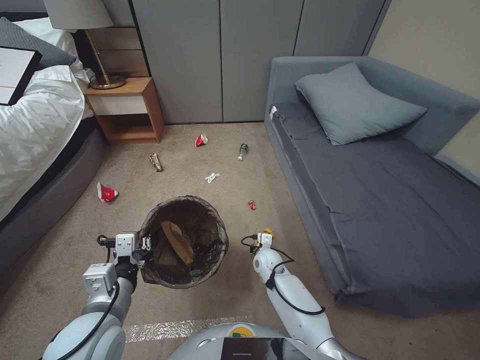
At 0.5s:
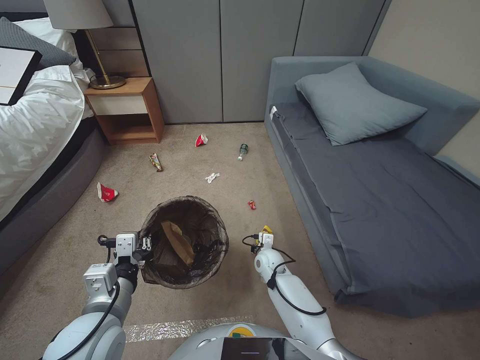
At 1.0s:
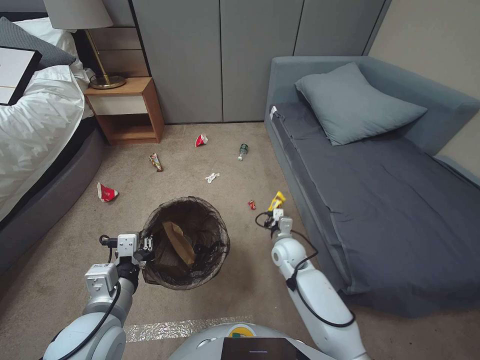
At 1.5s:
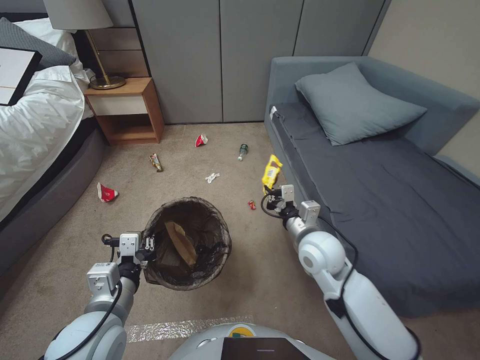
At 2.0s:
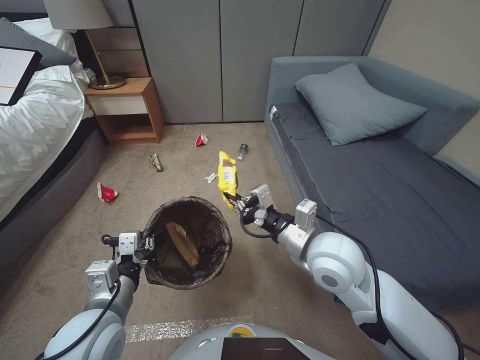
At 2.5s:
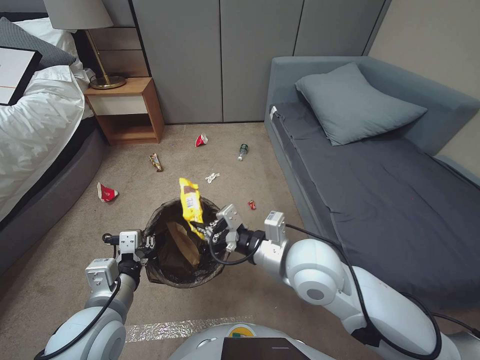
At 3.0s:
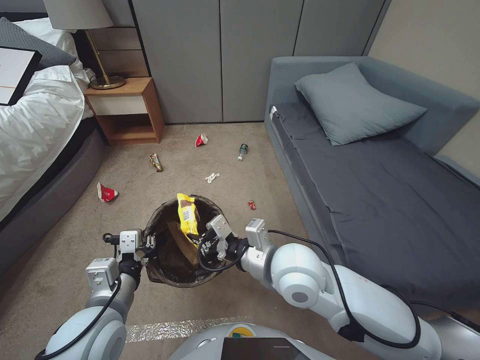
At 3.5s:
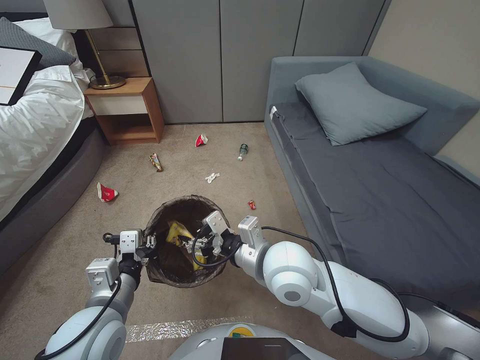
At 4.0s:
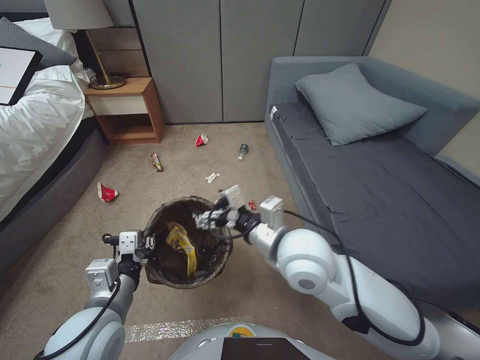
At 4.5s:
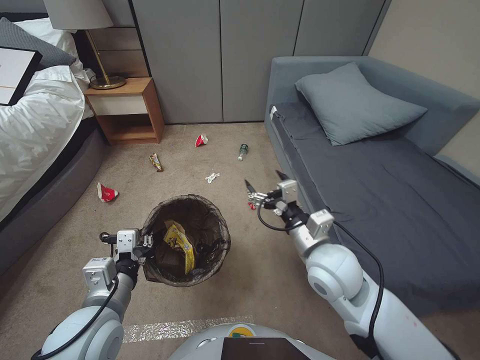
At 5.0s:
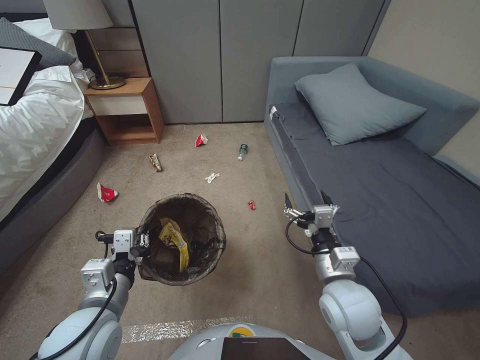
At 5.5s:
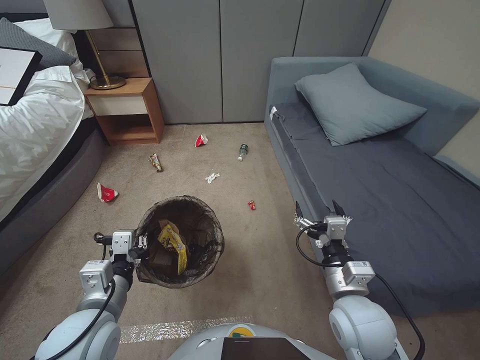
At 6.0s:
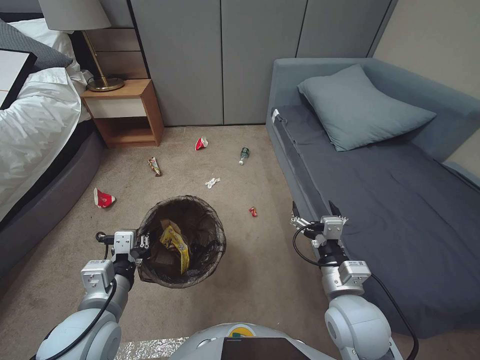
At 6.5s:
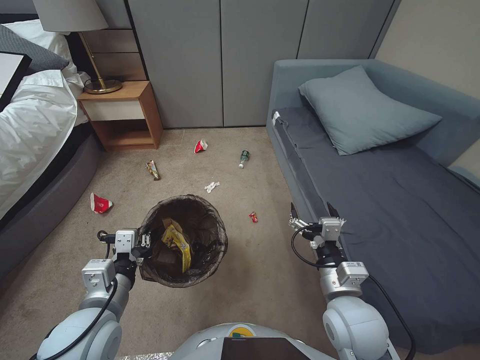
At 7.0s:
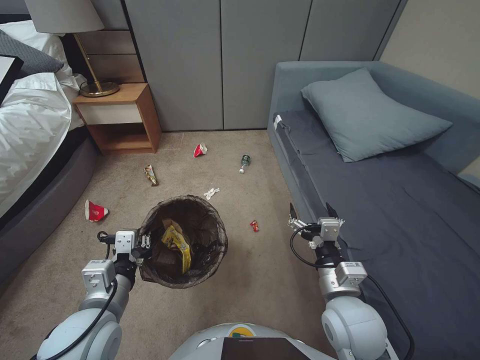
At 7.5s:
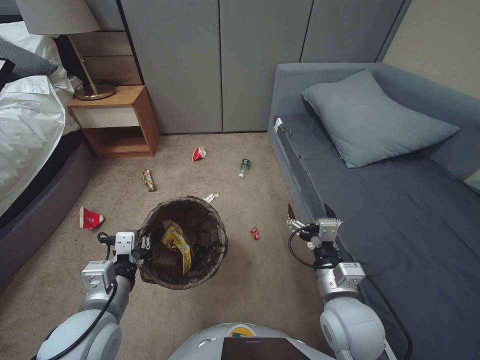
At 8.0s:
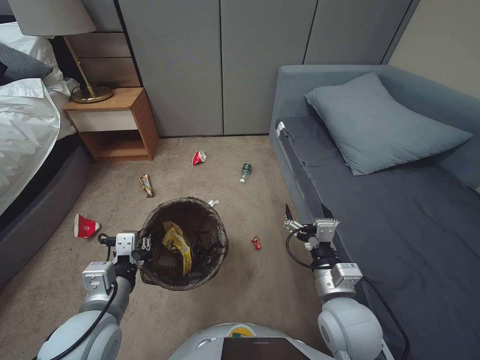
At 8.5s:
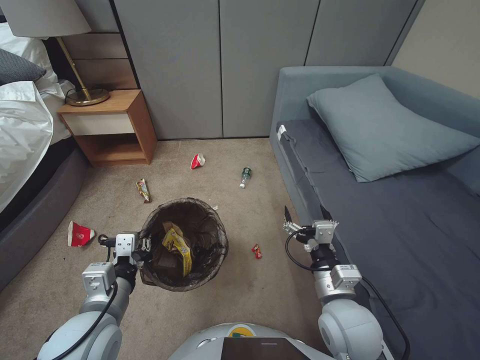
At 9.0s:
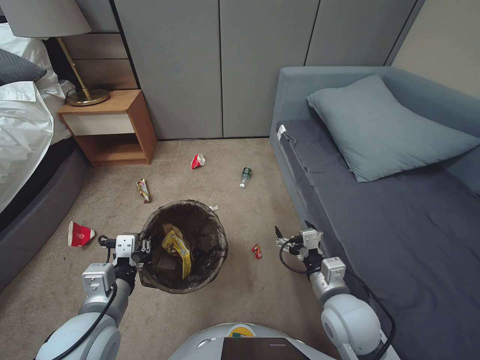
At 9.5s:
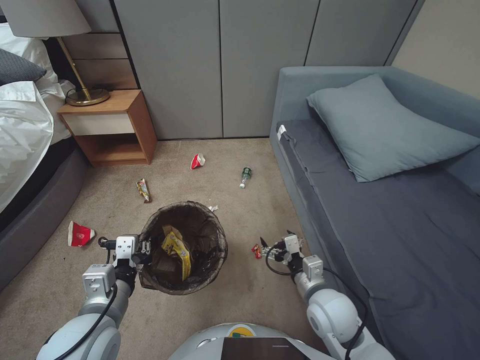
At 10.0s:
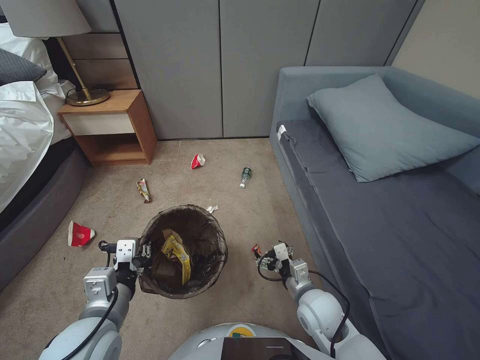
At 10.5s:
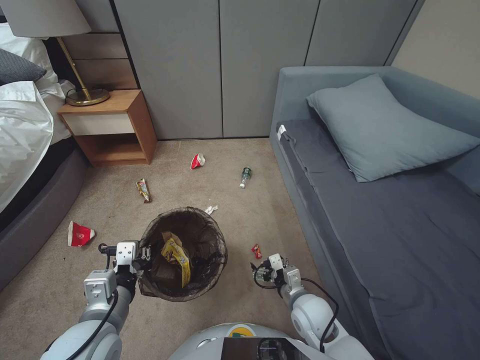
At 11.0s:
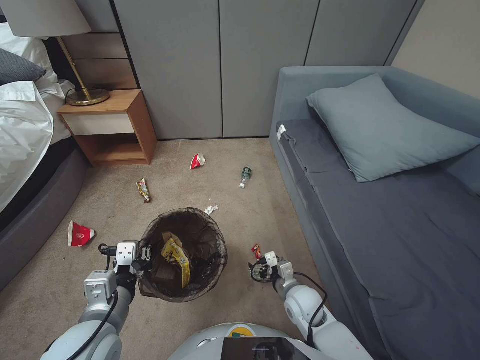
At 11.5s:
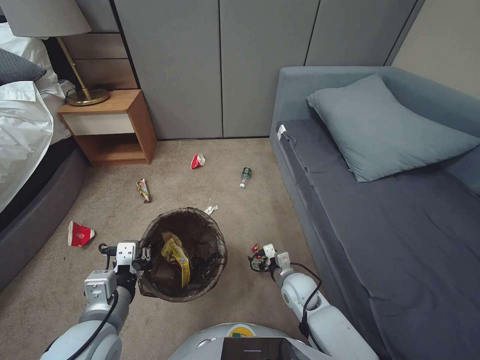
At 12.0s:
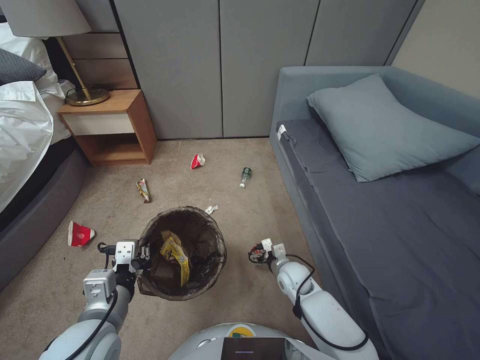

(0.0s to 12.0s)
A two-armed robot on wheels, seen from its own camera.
Task of the whole recording: Pick up the trash bin, then pick up the garbage from the floor and place it into the trash bin.
0.0s - 2.0s: The right gripper moves upward, approximately 30 cm, and closes.
2.0s - 4.0s: The right gripper goes roughly 10 cm to the left, and opens its fingers.
4.0s - 6.0s: The right gripper is displaced to the right, downward and backward by some 20 cm.
8.0s - 10.0s: The right gripper moves downward, some 10 cm.
10.0s - 12.0s: The right gripper moves forward and downward, approximately 15 cm.

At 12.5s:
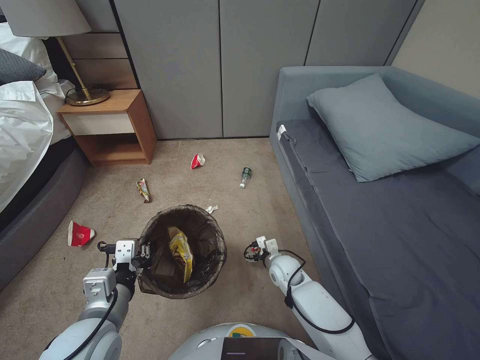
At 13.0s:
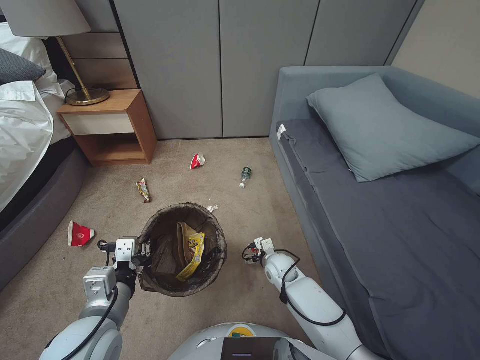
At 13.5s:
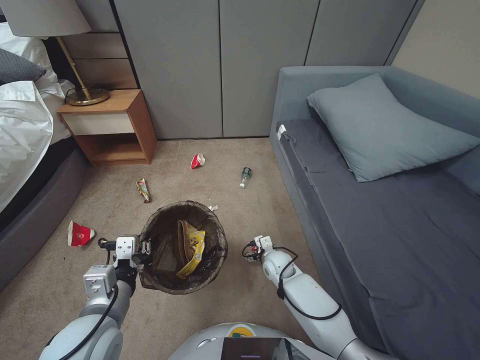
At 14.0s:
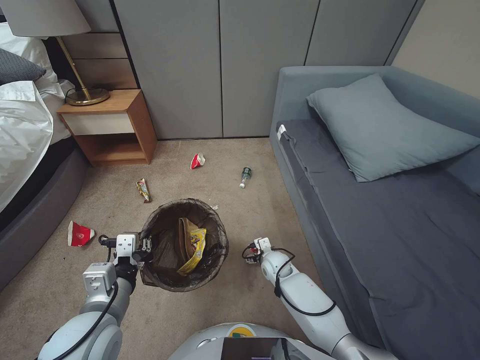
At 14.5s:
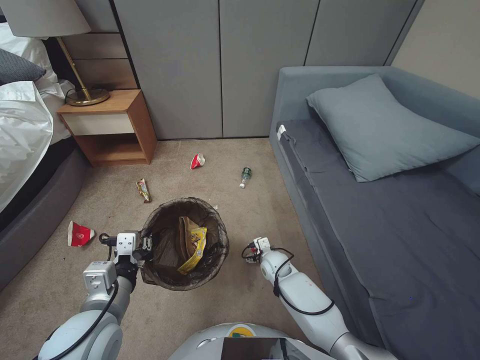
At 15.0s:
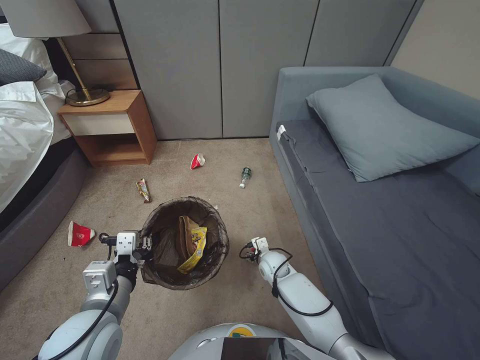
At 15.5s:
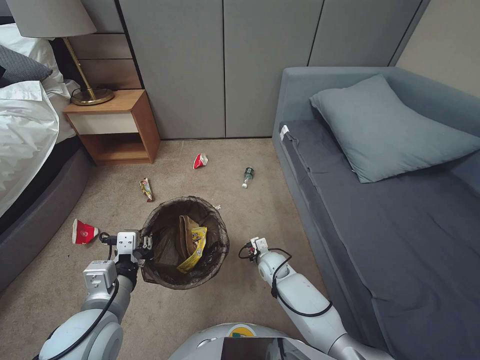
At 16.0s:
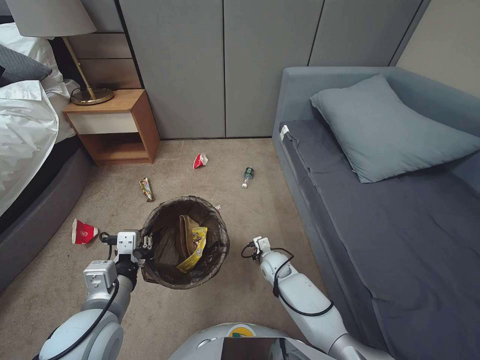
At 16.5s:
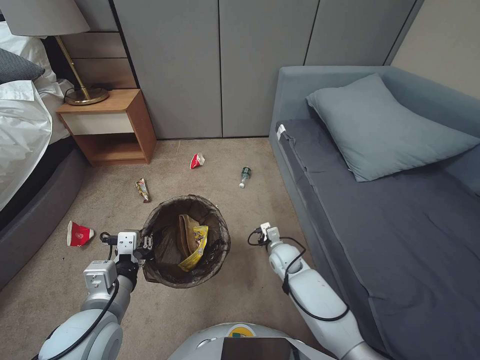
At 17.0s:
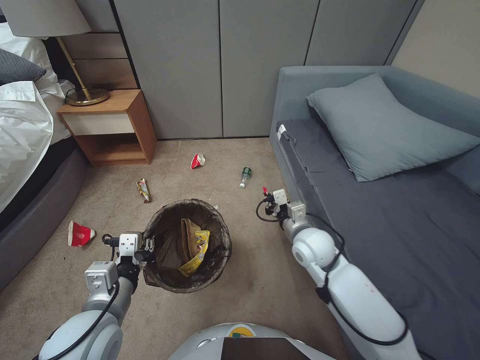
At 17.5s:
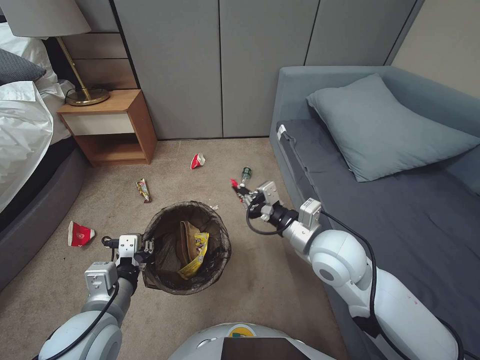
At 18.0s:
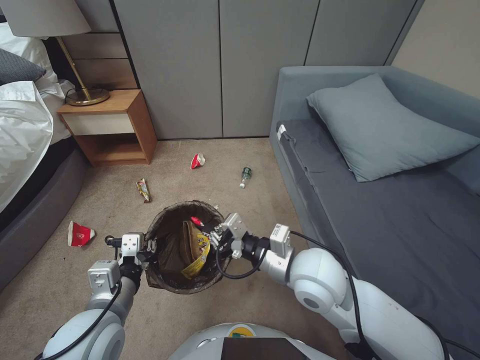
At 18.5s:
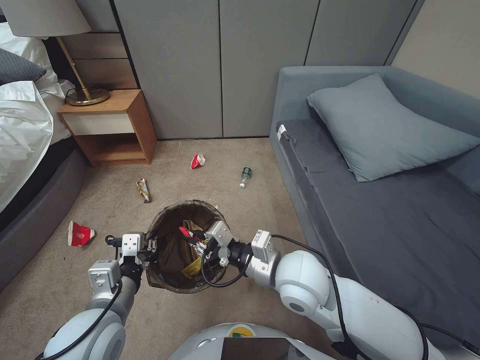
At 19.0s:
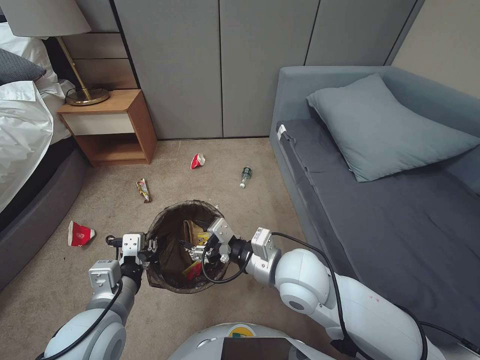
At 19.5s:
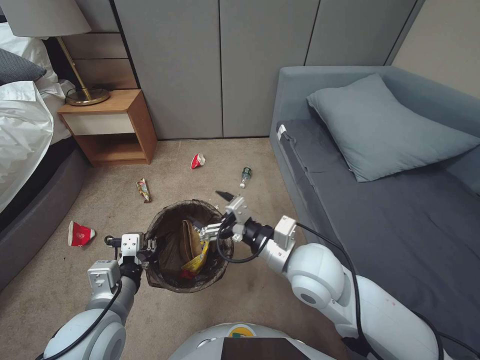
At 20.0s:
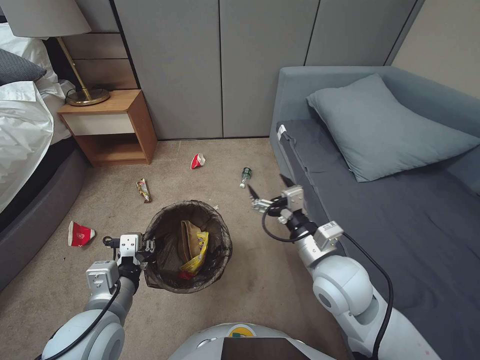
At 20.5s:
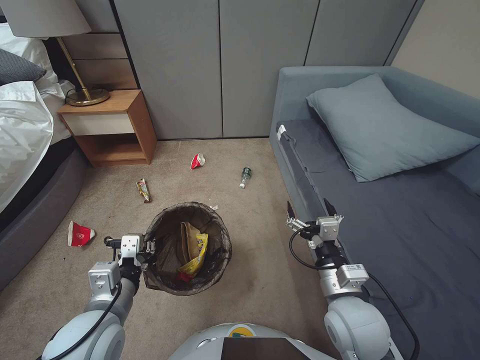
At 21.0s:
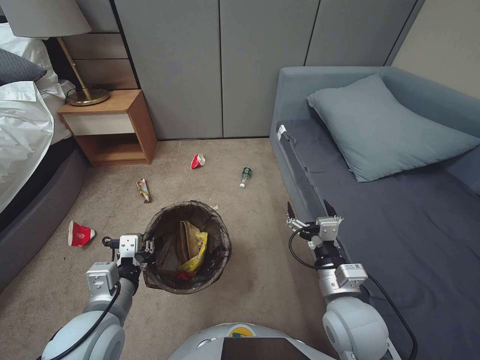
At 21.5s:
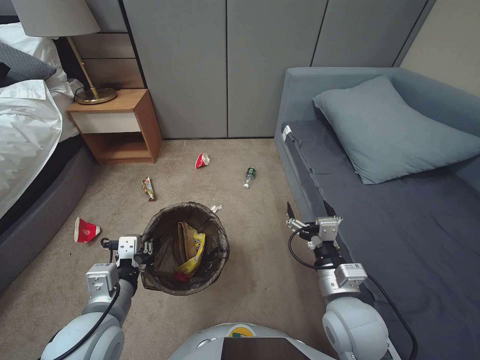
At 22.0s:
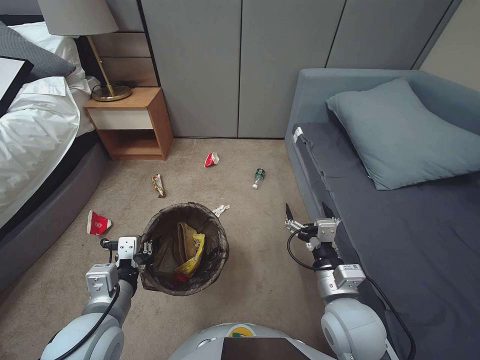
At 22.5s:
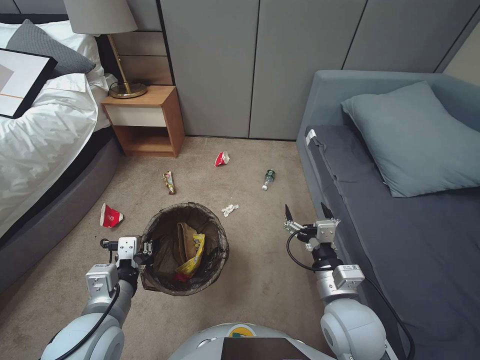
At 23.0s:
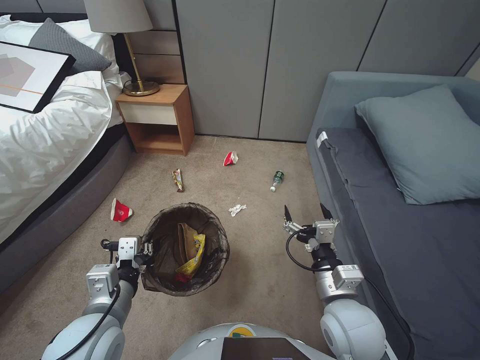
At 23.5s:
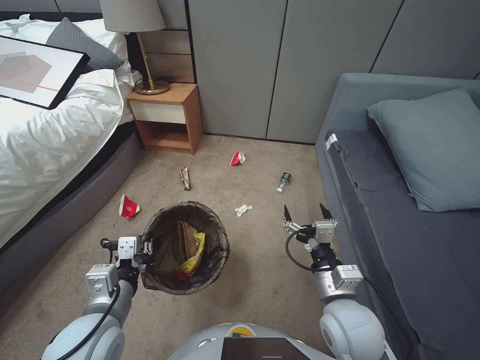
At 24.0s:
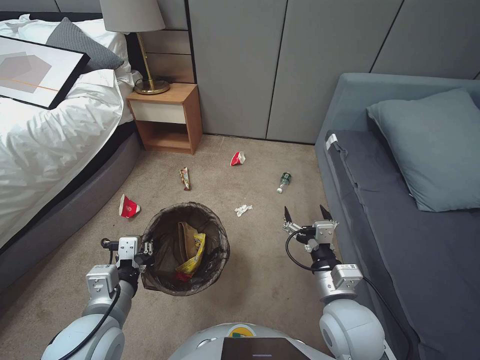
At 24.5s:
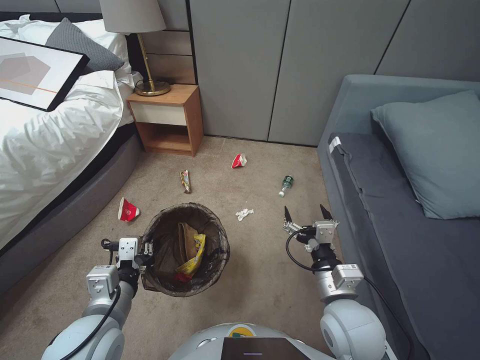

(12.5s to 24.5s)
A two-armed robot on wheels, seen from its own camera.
Task of the whole recording: Pick up the trash bin, then pick up the garbage from the floor and place it into the trash bin.
12.5s - 14.5s: The right gripper moves approximately 5 cm.
14.5s - 16.5s: The right gripper ends up roughly 5 cm from where it was, and closes.
16.5s - 18.5s: The right gripper shifts about 30 cm upward and backward.
18.5s - 20.5s: The right gripper moves to the right, downward and backward, approximately 15 cm, and opens up.

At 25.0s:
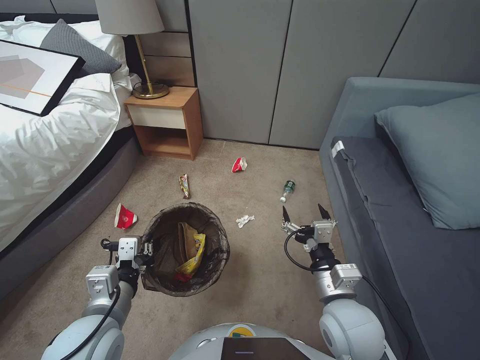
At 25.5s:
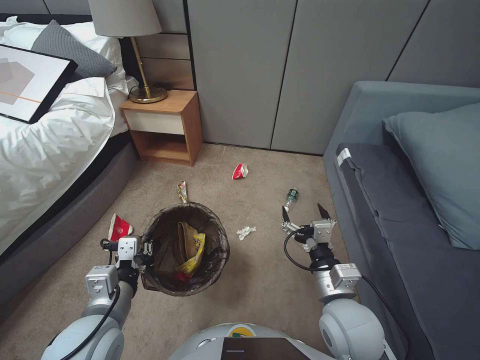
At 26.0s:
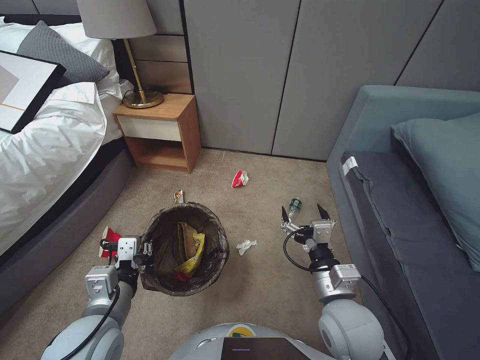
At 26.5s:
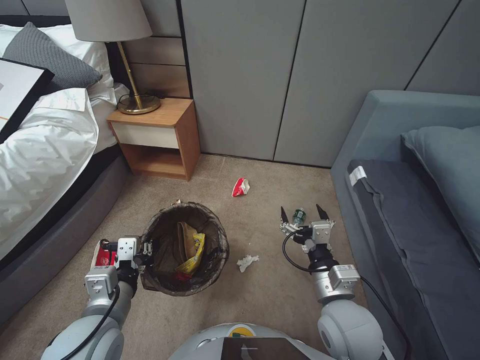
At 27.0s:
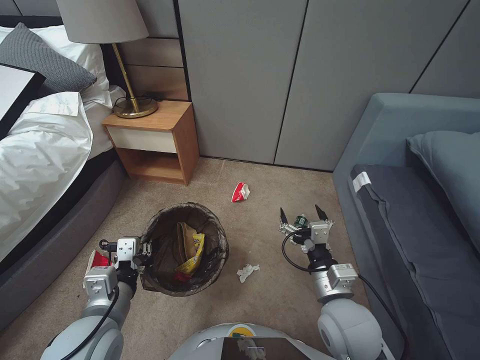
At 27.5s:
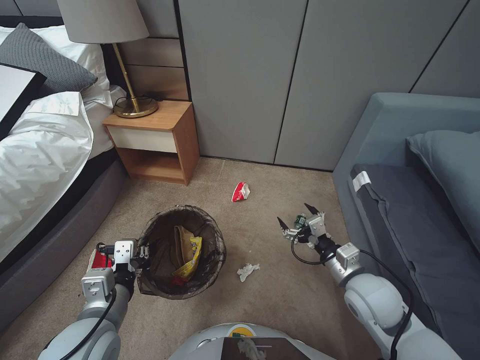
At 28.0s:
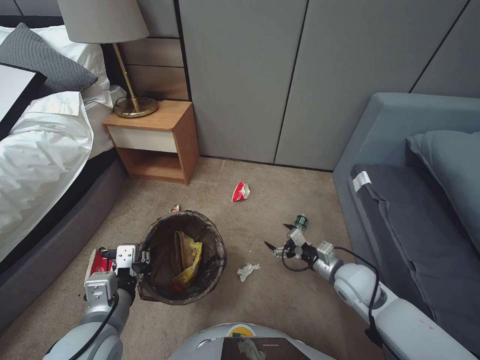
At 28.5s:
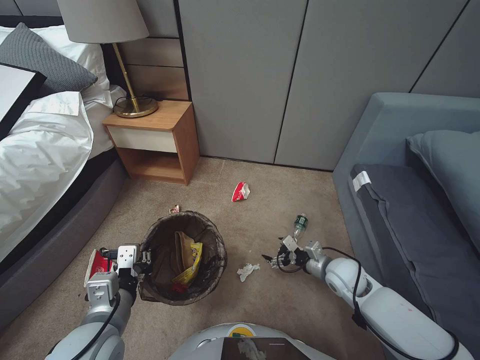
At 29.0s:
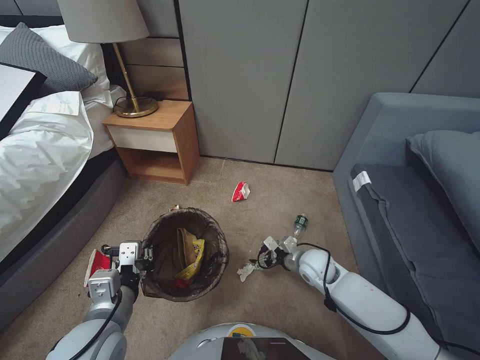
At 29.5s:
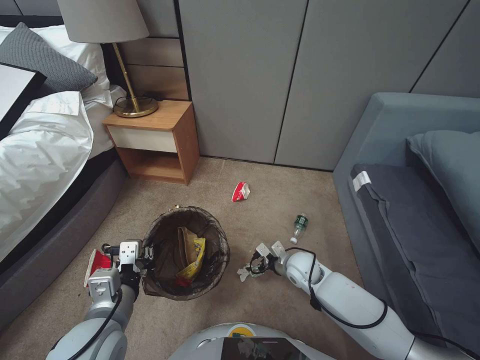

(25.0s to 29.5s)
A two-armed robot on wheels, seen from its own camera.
Task of the whole recording: Pick up the trash bin, then pick up the garbage from the floor and place it into the trash bin.
27.0s - 29.5s: The right gripper goes some 20 cm forward and downward.
